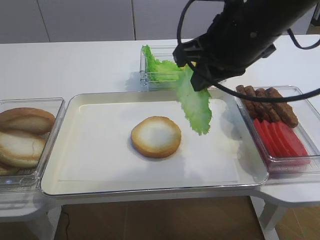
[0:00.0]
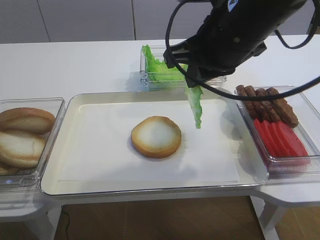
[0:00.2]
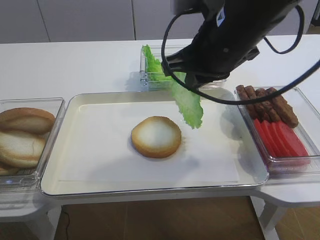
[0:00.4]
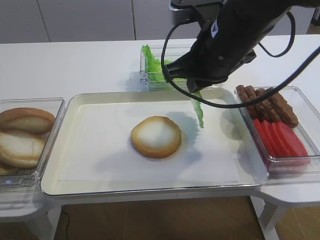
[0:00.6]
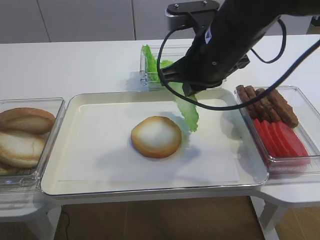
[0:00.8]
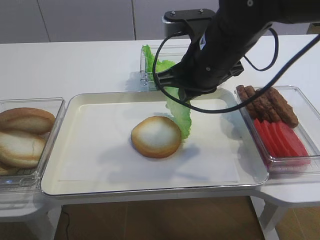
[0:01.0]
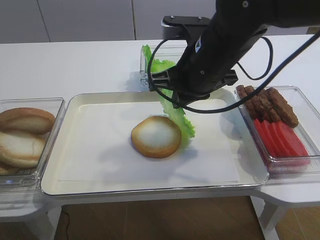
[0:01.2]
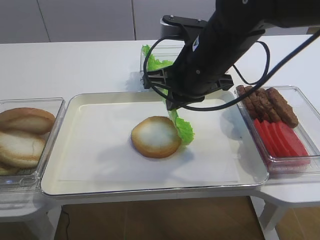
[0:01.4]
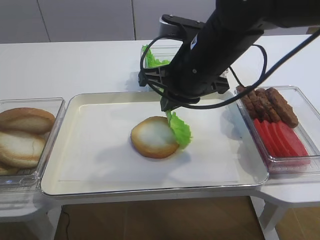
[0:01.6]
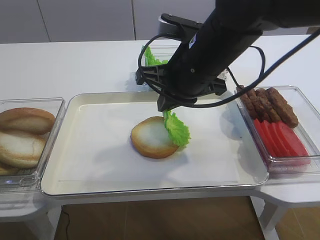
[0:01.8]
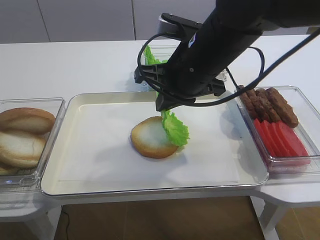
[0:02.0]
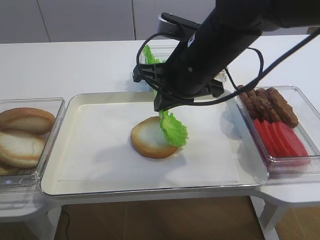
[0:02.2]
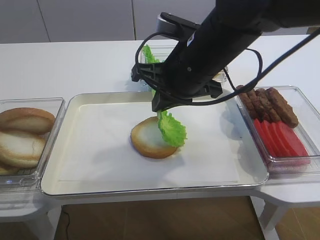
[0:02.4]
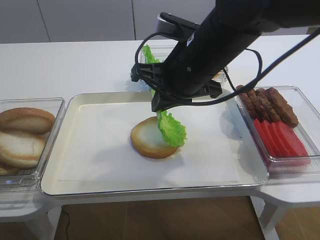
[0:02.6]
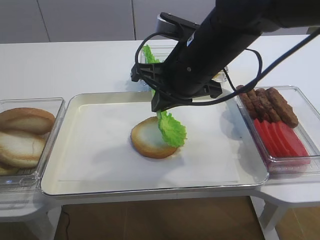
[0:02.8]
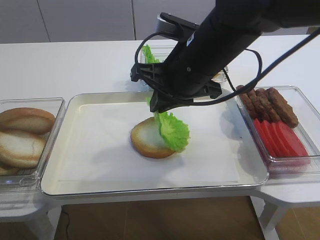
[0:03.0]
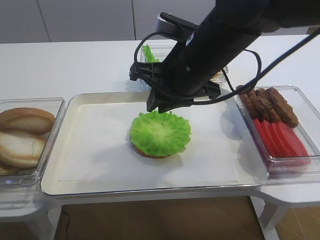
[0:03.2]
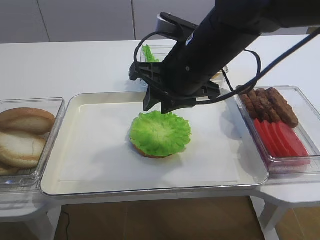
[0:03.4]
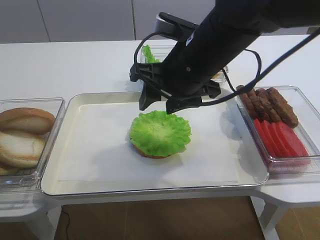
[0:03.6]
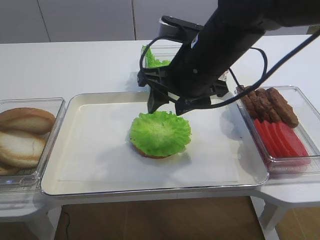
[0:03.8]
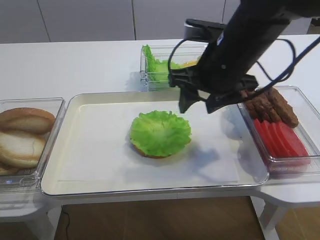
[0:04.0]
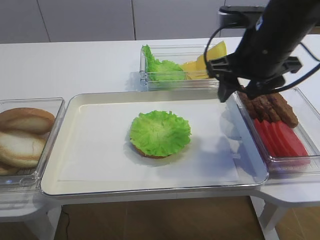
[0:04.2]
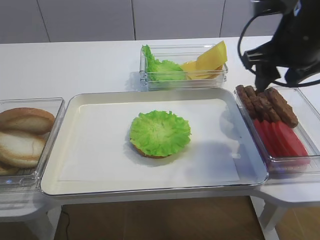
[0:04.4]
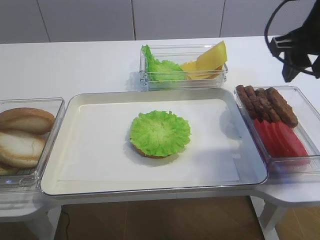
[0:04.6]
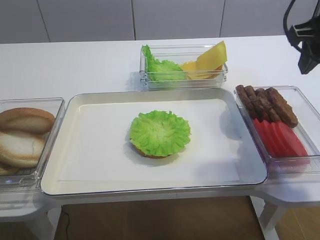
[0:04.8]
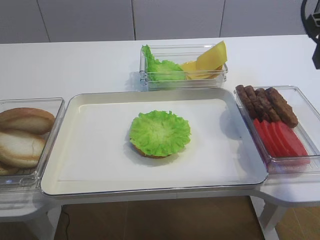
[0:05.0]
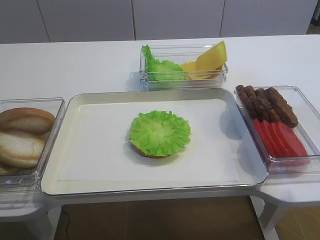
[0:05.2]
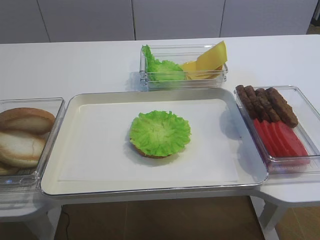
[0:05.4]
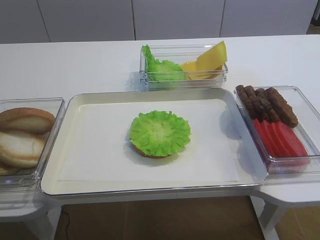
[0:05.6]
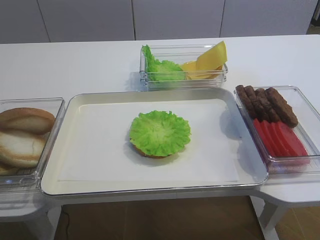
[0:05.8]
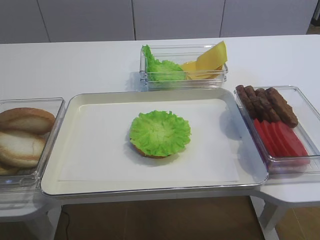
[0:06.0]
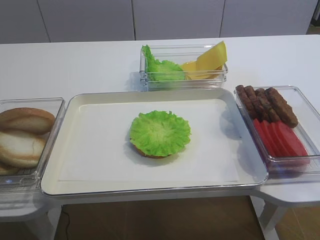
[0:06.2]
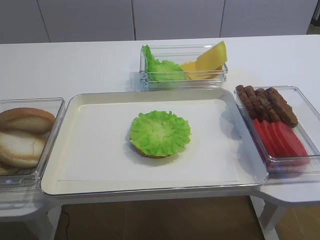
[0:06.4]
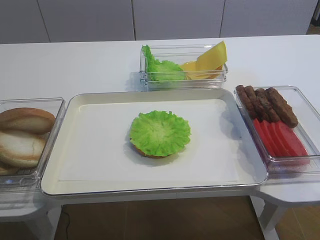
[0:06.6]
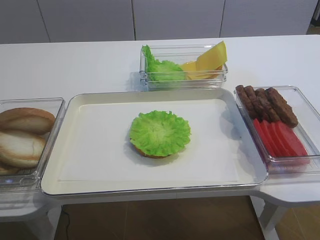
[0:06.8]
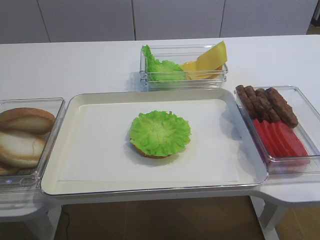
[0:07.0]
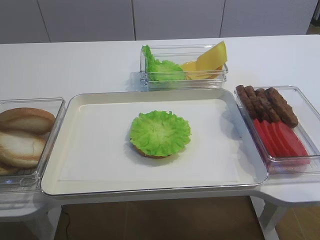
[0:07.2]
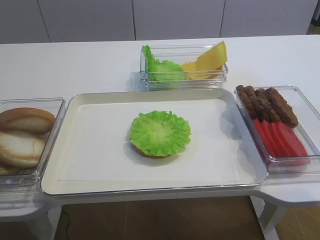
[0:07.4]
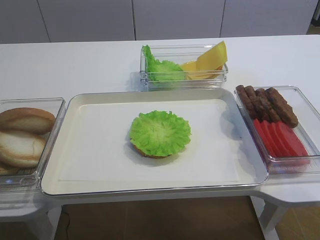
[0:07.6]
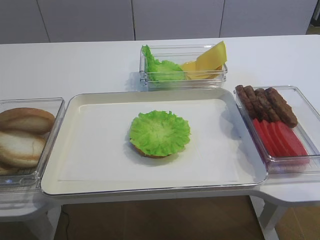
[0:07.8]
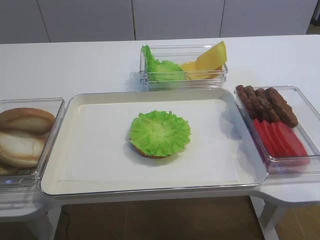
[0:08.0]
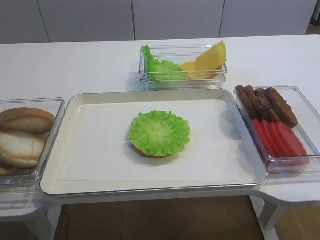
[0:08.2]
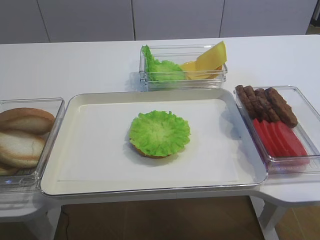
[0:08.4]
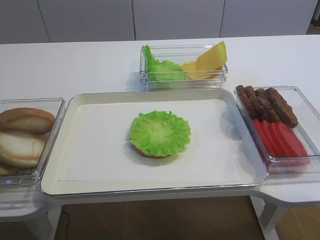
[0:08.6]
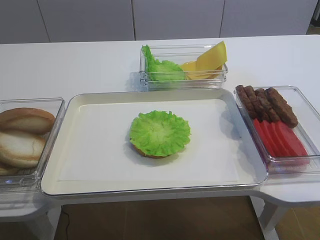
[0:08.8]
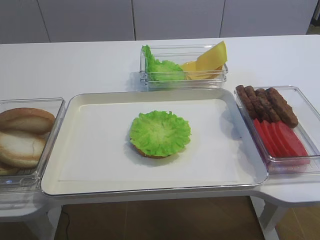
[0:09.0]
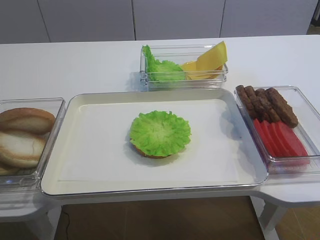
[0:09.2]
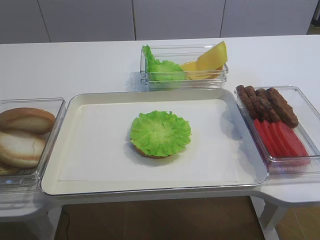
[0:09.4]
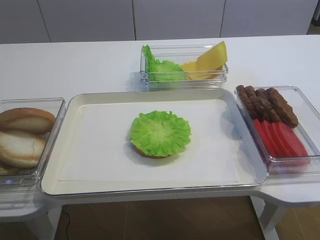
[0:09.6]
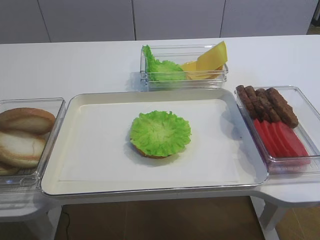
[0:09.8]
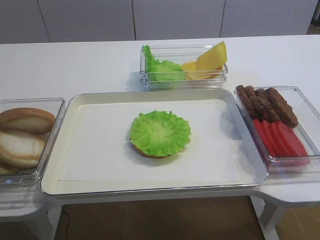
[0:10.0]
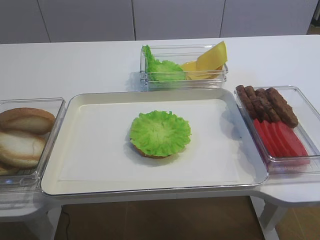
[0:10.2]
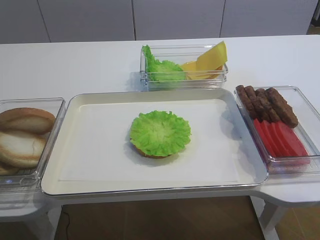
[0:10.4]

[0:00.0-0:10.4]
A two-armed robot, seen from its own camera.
Step, 0:00.0 to 0:03.8: Place the lettuce leaf on the bread slice with the right gripper.
0:00.0 to 0:01.4: The right gripper is displaced downward by approximately 5 cm.
0:01.4 to 0:03.0: The grippers stay close to where they were, moving slightly.
0:03.0 to 0:04.4: The right gripper shifts roughly 10 cm to the right, and opens.
0:04.4 to 0:06.0: The right gripper travels backward, upward and to the right by about 25 cm.

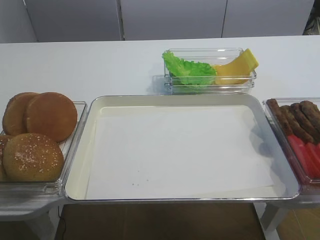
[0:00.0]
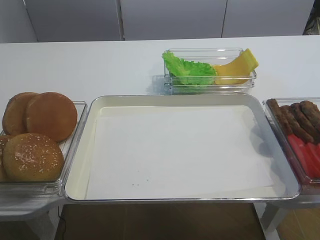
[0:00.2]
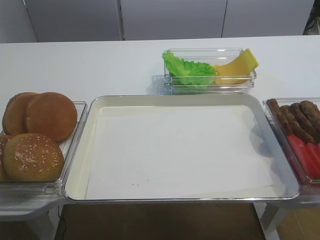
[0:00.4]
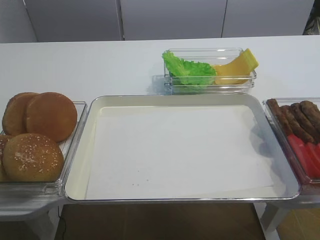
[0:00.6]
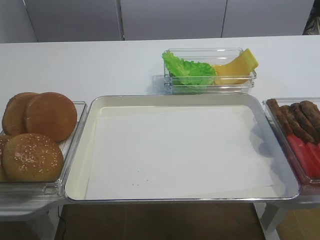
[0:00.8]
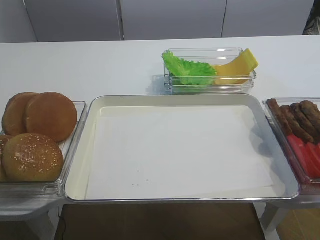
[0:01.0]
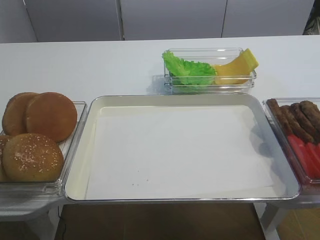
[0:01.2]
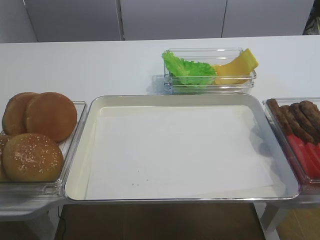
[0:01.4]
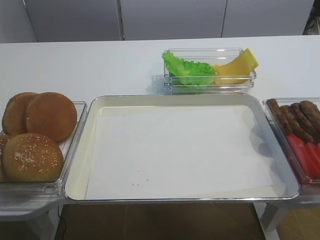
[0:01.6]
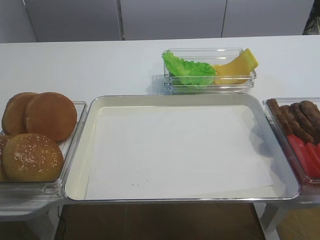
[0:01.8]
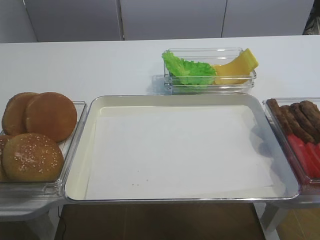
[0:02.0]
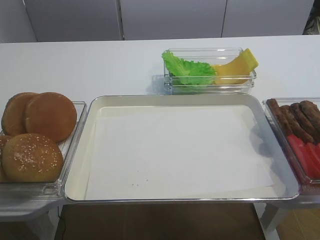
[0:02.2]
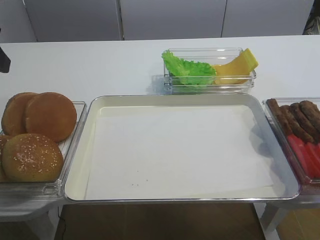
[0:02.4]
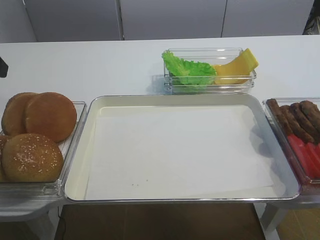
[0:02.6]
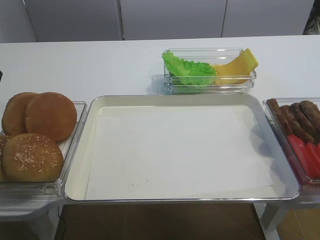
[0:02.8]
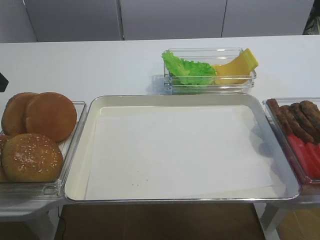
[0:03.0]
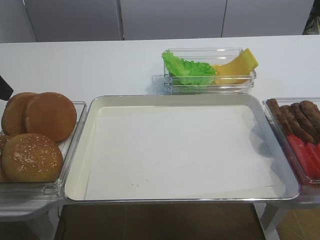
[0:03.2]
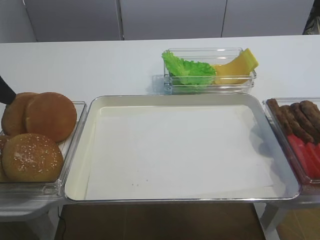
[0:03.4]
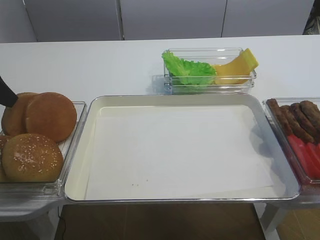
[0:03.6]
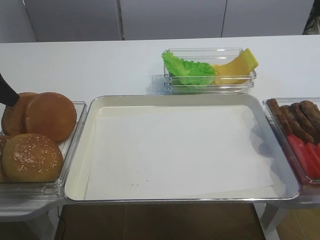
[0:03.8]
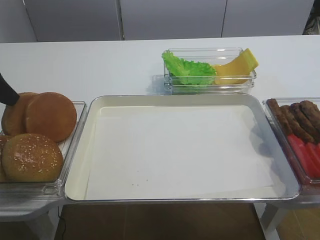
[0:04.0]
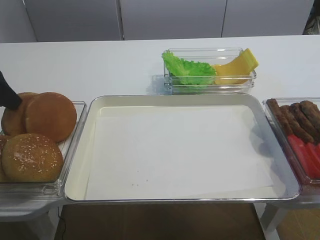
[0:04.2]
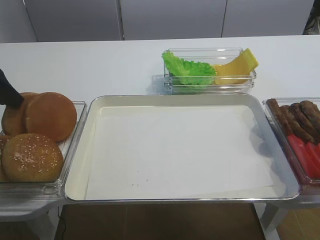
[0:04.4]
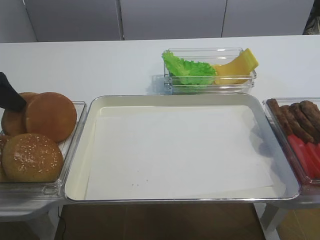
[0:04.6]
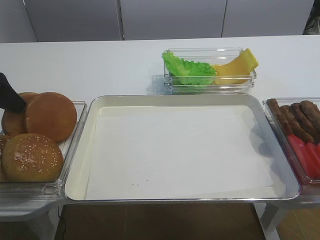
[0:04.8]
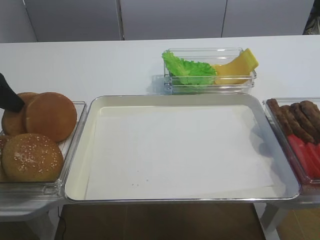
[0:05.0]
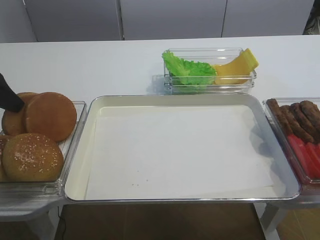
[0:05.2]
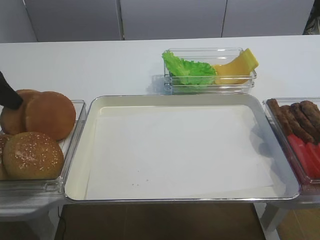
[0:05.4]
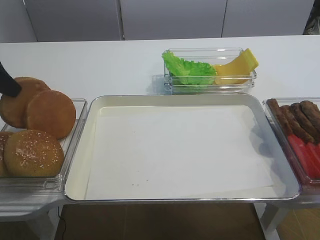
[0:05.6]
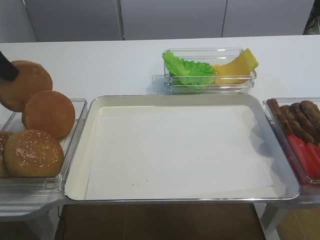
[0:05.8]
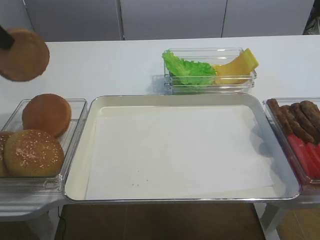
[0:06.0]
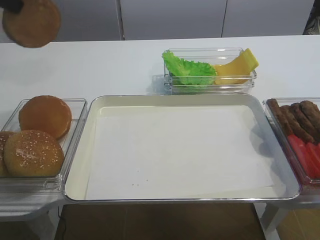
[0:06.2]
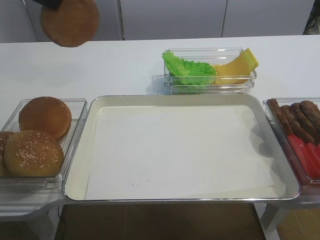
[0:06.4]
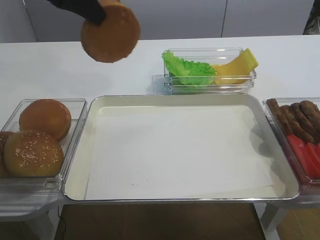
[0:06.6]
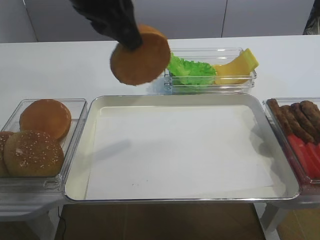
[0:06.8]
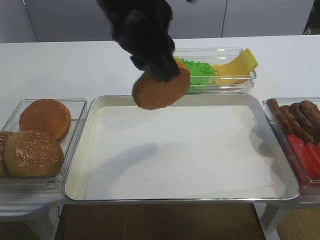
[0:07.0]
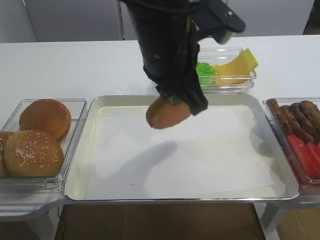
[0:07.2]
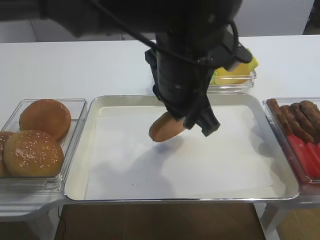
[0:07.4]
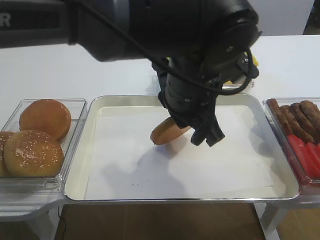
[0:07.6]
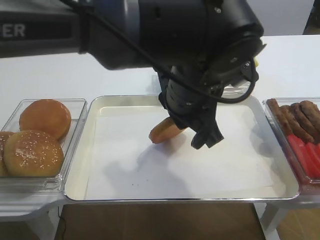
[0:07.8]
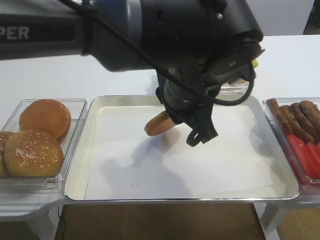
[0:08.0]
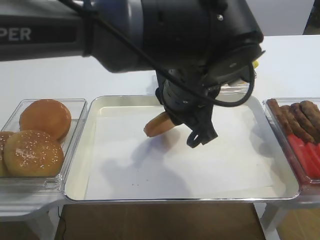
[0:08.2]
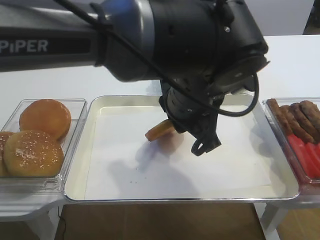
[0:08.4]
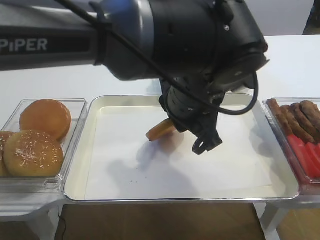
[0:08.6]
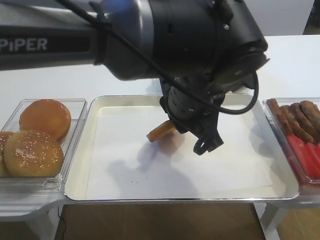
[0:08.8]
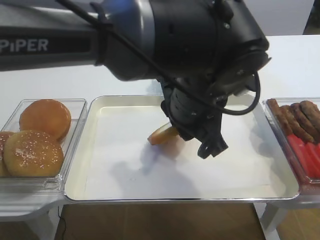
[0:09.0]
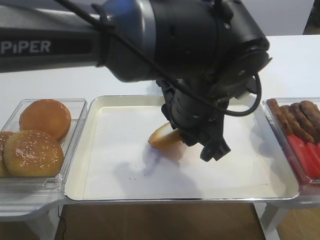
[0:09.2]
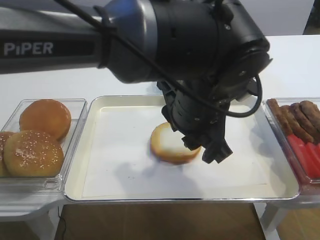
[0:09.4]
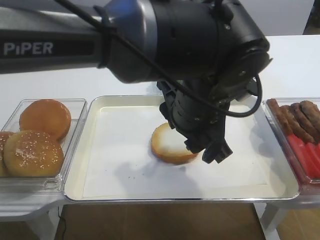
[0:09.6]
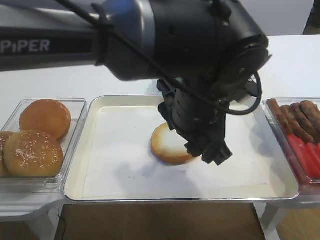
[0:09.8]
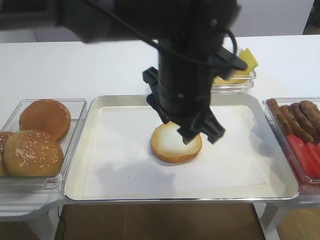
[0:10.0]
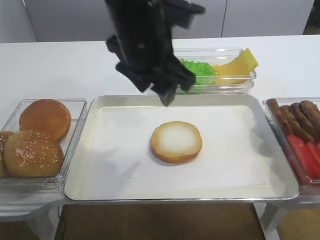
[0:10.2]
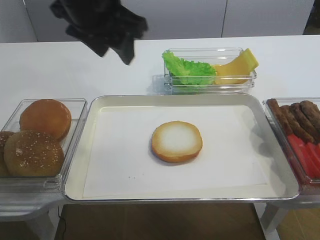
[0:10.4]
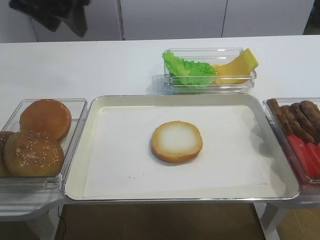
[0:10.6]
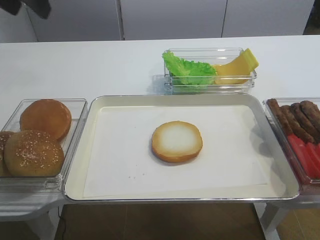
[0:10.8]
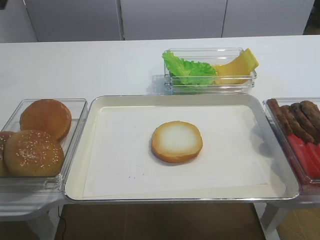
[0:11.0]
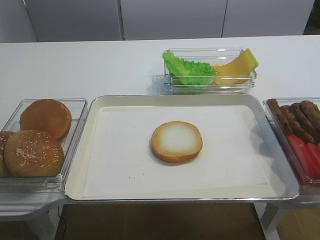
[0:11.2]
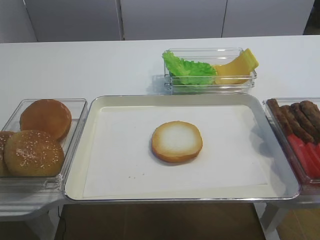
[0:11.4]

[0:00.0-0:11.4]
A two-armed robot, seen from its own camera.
Step, 0:00.0 to 0:05.8: Pick up the bread slice with the left gripper.
Step, 0:06.0 to 0:09.8: Place the bread slice on the tray with the left gripper.
0:02.8 to 0:04.2: The left gripper moves downward, some 5 cm.
0:04.2 to 0:05.6: The left gripper closes its fingers.
0:05.6 to 0:07.2: The left gripper shifts approximately 30 cm to the right.
0:07.2 to 0:08.6: The left gripper goes roughly 5 cm downward.
0:08.6 to 0:10.0: The left gripper opens.
0:10.0 to 0:11.4: The left gripper shifts approximately 35 cm to the left and upward.

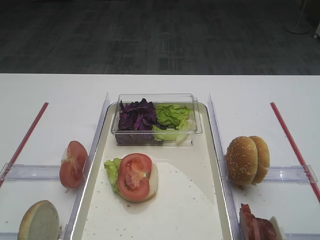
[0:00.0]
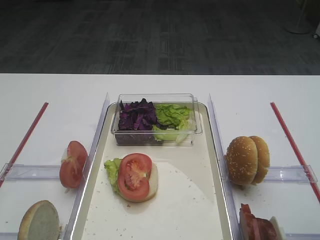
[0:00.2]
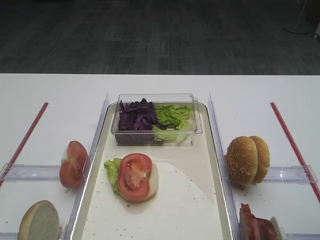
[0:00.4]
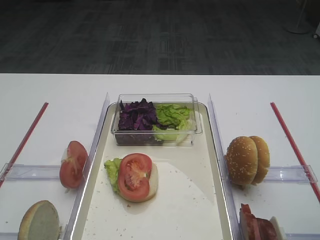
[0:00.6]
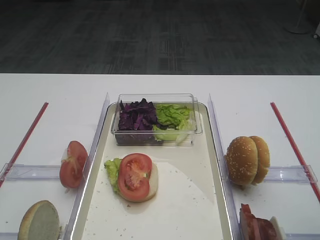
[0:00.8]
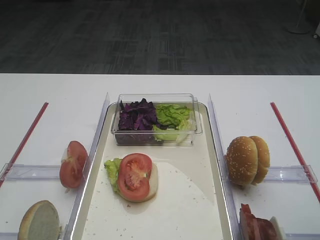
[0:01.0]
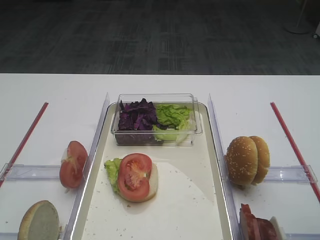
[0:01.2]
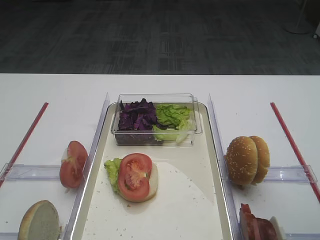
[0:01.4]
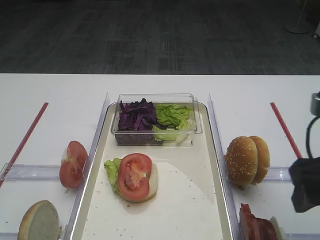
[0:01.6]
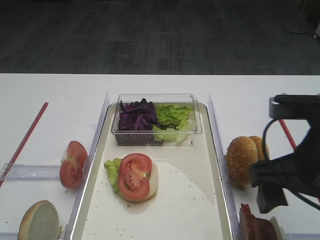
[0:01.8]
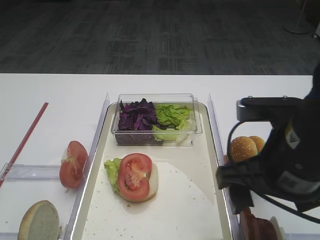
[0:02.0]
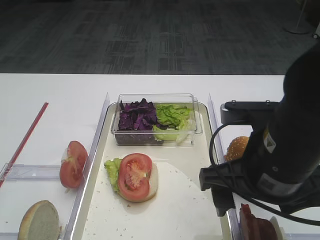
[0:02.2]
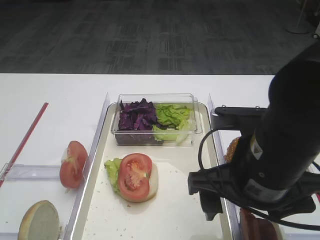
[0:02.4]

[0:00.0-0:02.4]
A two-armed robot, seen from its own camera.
0:01.2 to 0:02.4: The right gripper heads to the left, covering about 15 cm.
